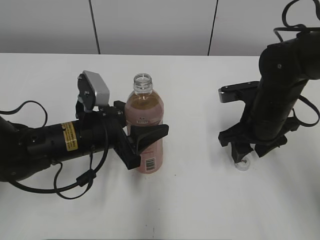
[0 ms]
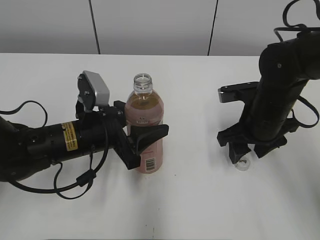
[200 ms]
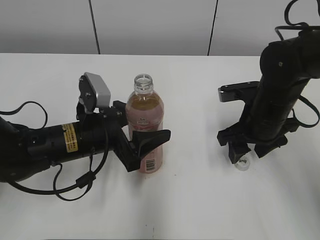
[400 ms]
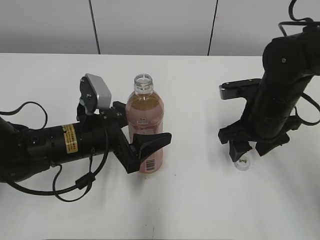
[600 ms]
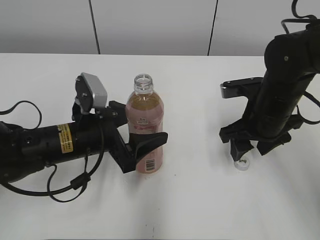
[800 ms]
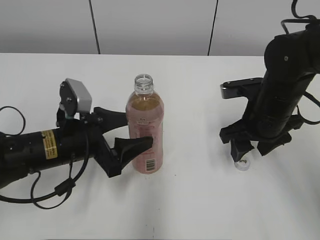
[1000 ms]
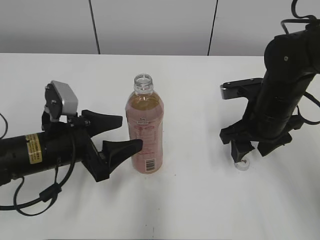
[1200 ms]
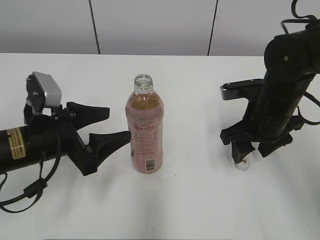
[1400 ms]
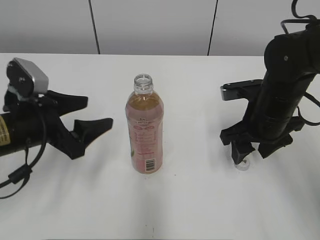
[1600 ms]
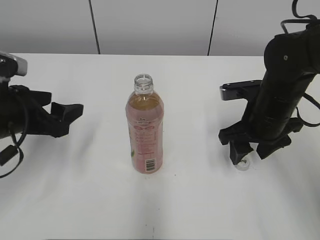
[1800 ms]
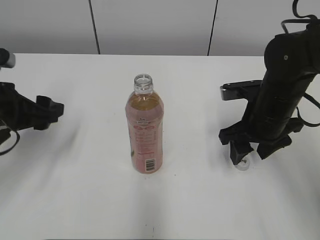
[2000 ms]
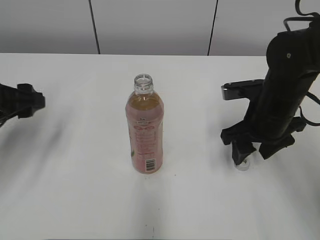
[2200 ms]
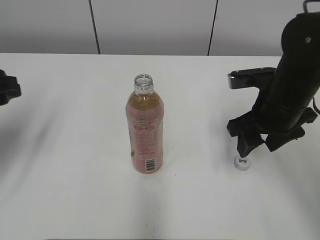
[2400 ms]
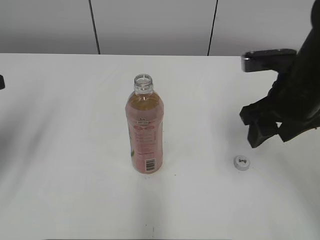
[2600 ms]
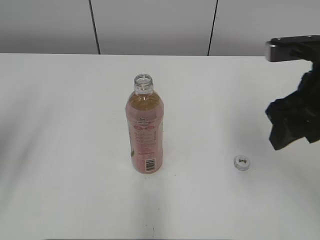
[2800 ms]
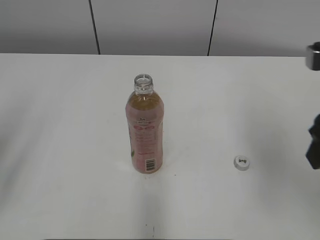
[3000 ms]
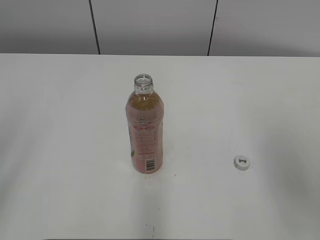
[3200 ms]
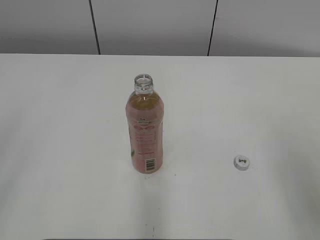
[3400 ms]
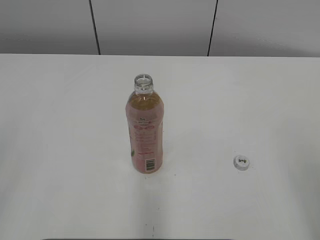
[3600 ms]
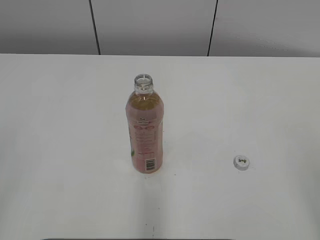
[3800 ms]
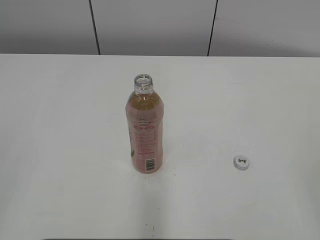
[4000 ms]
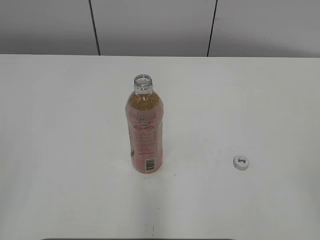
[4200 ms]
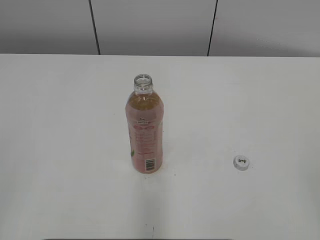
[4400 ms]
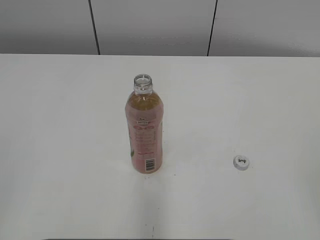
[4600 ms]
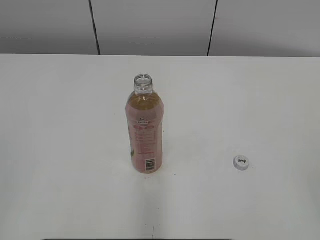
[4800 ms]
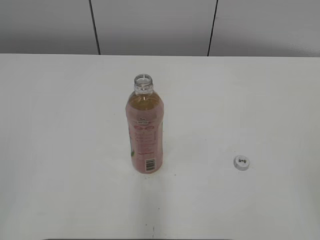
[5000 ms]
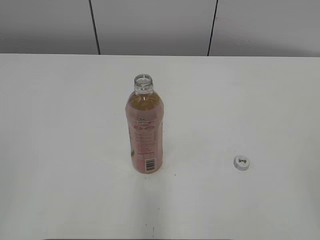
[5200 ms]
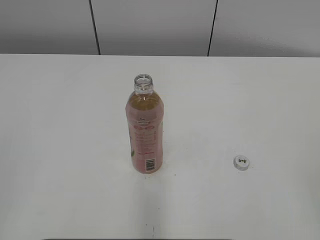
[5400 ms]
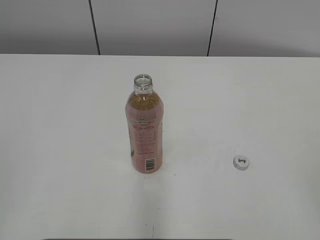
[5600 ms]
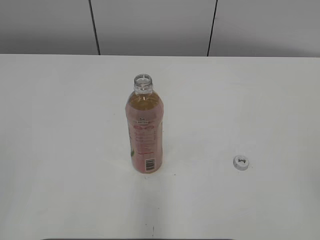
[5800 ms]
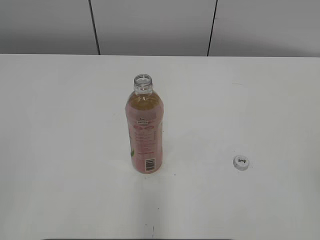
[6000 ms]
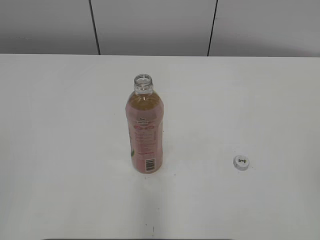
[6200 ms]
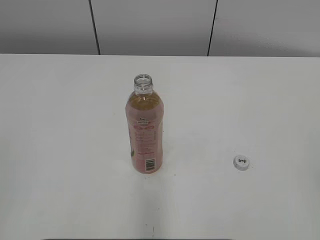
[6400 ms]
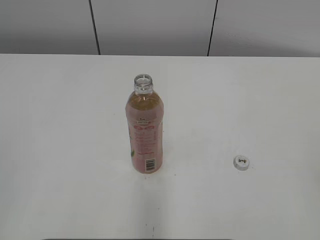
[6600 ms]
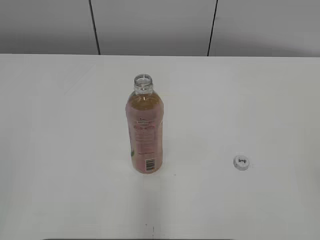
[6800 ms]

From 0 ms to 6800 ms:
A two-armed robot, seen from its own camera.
From 0 ms to 1400 ms: The left gripper goes some 5 cm to the left, and opens.
From 1400 ms to 2800 ms: The right gripper moves upward and backward, some 15 cm, while the left gripper is displaced upward and to the left by some 20 cm.
From 2800 ms to 4000 ms: The right gripper moves backward and to the right, some 25 cm, while the left gripper heads backward, covering roughly 20 cm, and closes.

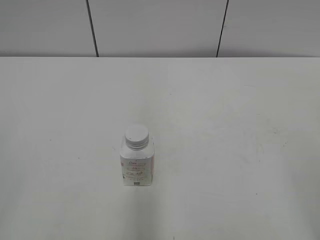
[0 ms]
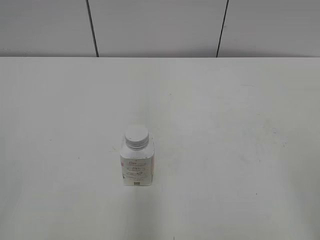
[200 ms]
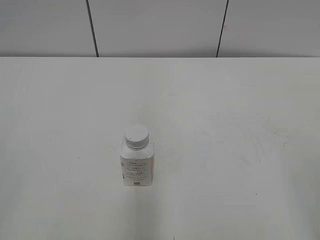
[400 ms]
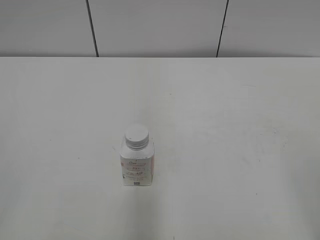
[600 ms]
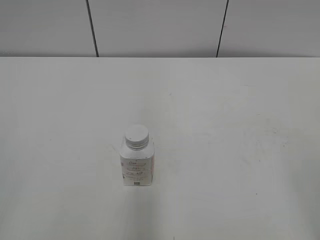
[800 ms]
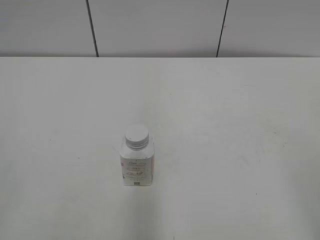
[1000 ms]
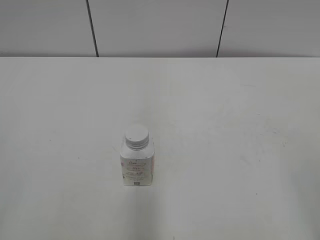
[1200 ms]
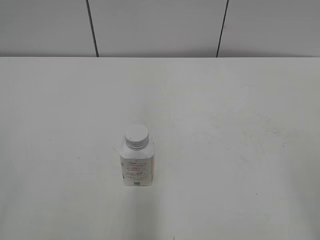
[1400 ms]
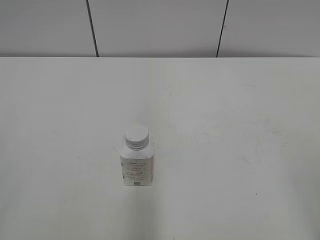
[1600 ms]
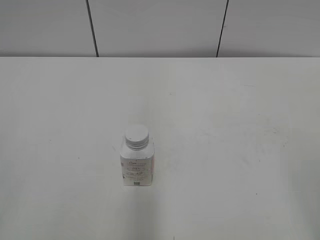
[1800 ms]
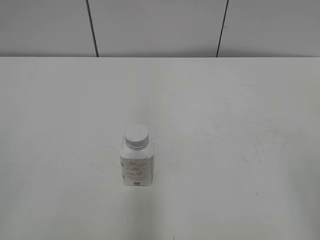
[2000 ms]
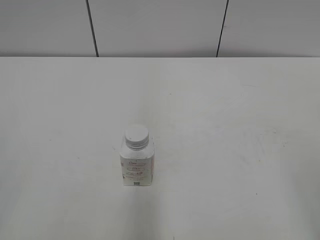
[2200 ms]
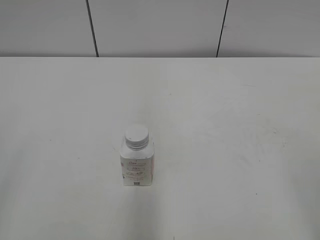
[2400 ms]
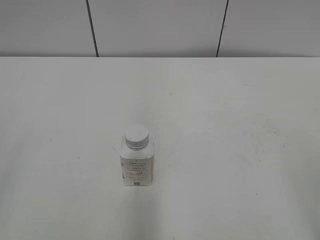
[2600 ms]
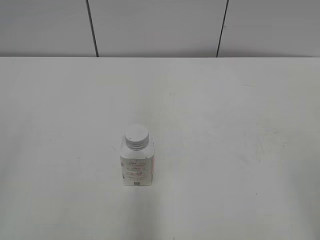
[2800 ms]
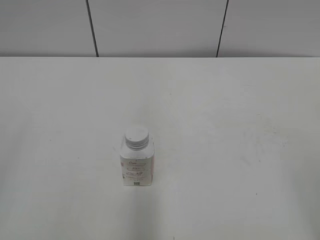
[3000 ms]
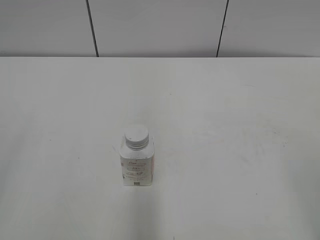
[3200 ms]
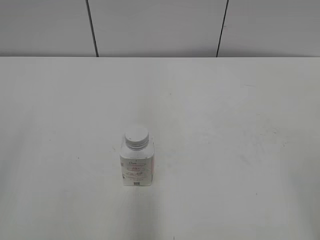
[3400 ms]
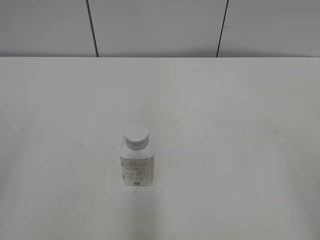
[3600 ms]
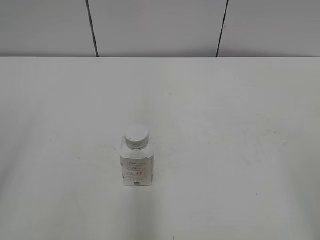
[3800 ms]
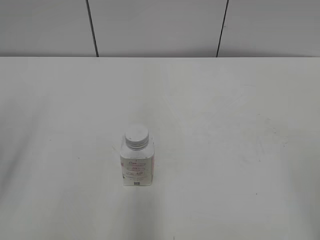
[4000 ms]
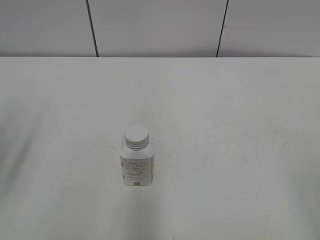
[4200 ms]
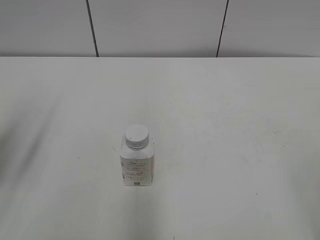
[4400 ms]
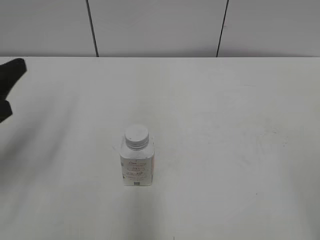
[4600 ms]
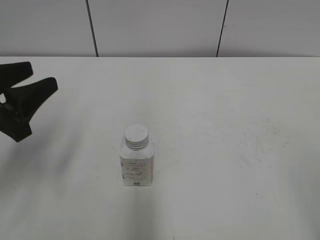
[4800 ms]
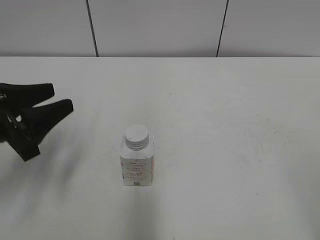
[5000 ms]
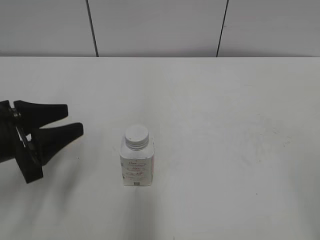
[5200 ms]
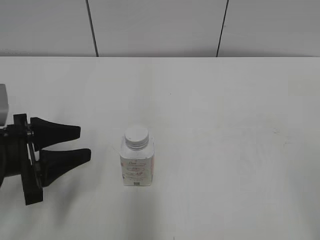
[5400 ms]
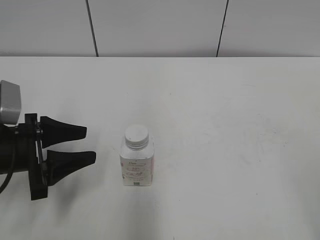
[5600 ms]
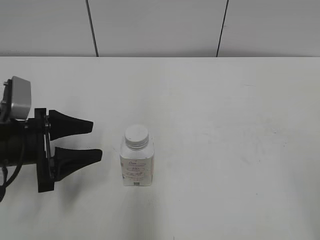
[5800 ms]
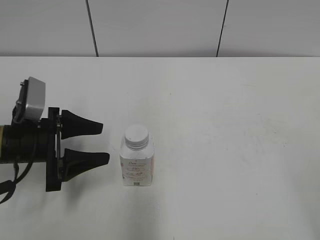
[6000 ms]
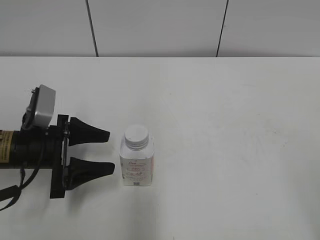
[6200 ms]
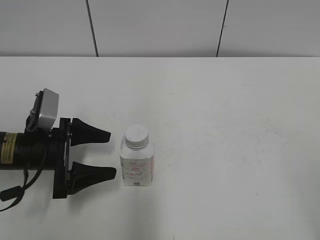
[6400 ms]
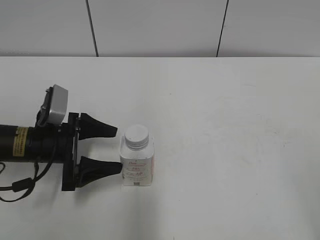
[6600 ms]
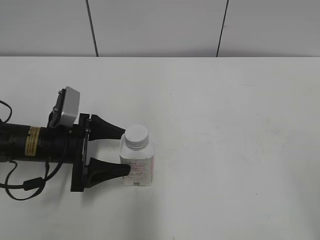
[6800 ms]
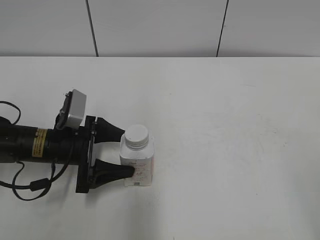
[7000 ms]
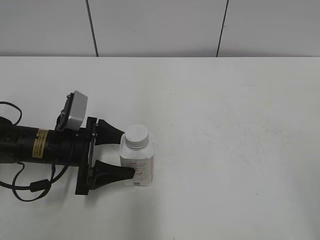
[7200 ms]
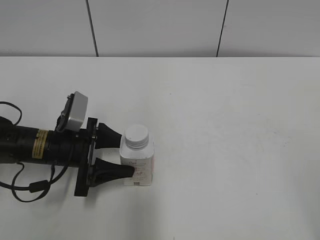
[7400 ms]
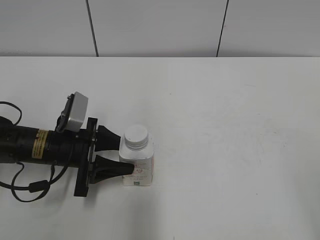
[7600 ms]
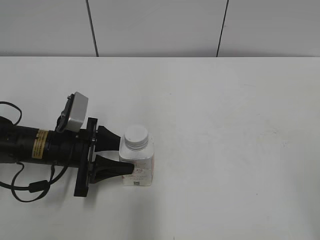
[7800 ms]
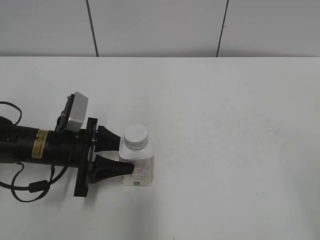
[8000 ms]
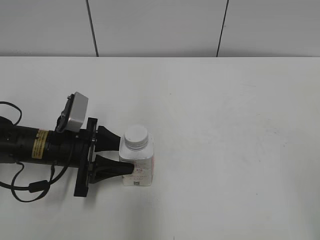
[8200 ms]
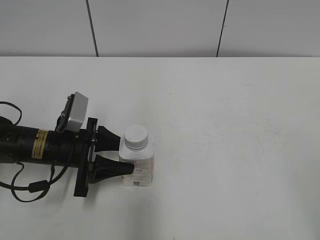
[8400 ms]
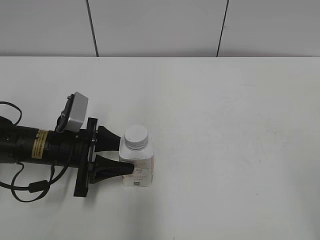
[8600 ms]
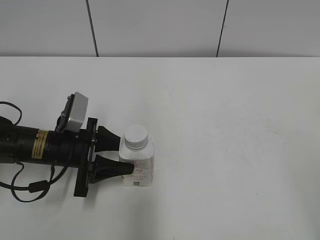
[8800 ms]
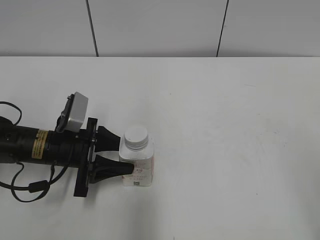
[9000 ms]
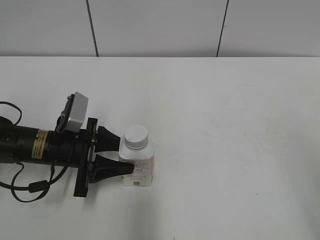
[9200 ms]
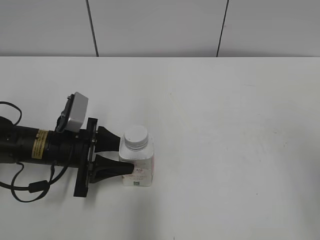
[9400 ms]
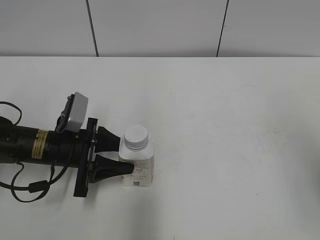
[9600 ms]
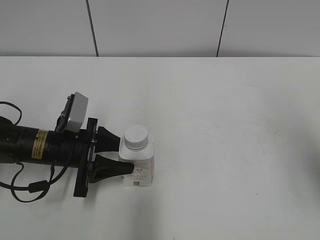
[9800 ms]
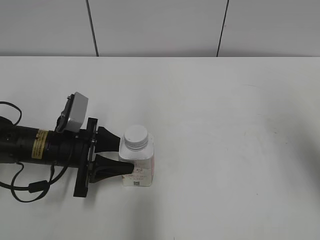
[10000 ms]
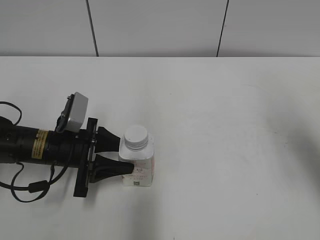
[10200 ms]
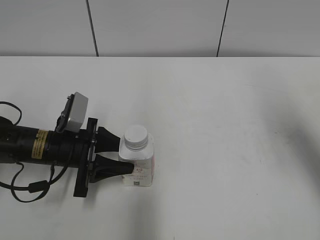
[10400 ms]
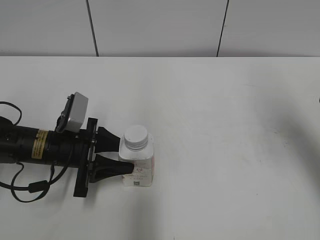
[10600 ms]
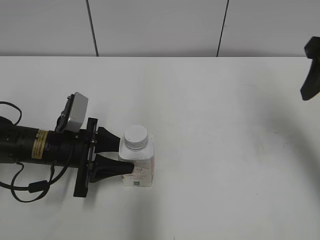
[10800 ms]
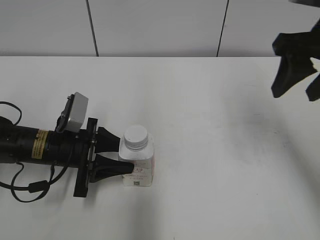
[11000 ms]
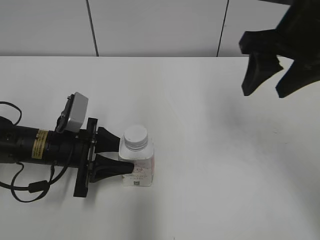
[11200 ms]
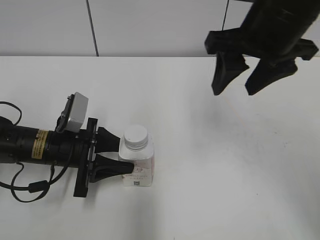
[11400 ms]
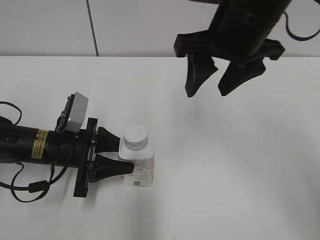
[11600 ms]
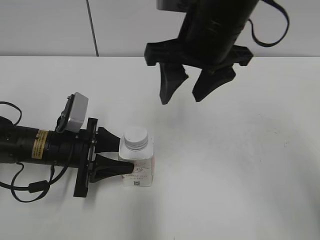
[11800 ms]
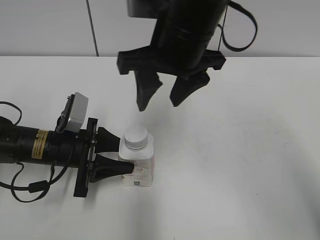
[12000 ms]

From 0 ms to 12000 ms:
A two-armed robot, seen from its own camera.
Step, from 0 ms to 7800 ms: Grasp the bottle and move it to the center of the table with the left gripper.
From 3000 ms to 4400 ms: The left gripper shifts about 15 cm forward.
From 4400 ms to 6000 ms: The left gripper moves downward, forward and to the right, approximately 15 cm.
From 6000 ms to 7600 ms: The left gripper moves some 5 cm.
From 9000 ms to 10400 ms: The right gripper goes some 25 cm forward, and closes its fingers.
From 10400 ms to 12000 ms: The right gripper travels to the left by approximately 25 cm.

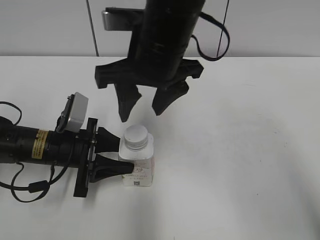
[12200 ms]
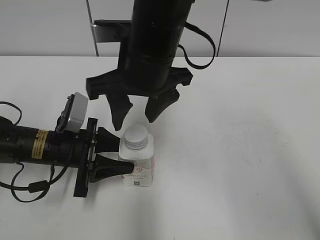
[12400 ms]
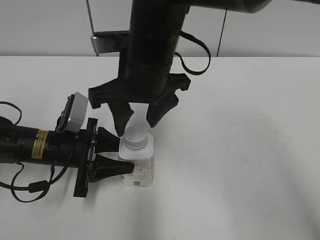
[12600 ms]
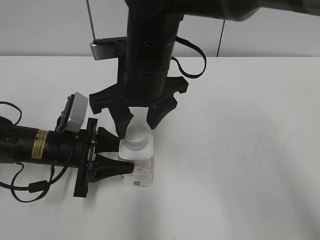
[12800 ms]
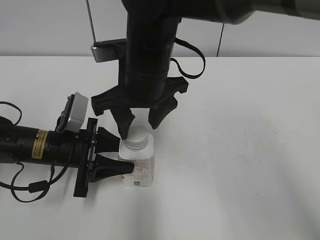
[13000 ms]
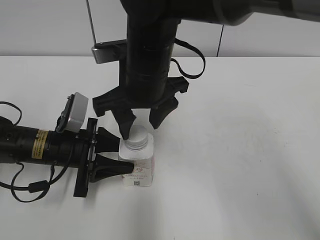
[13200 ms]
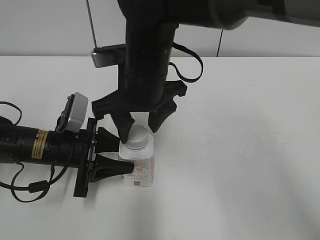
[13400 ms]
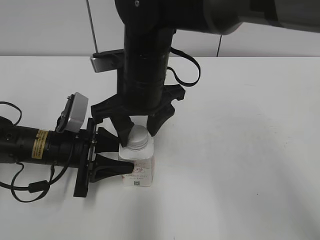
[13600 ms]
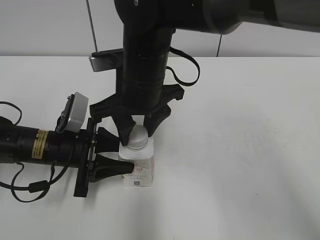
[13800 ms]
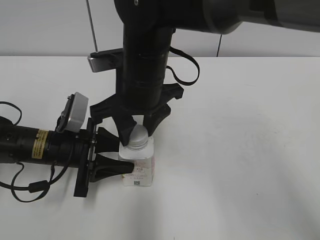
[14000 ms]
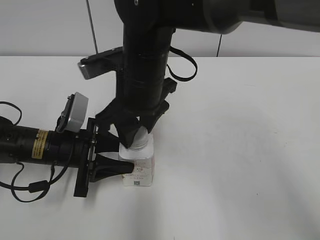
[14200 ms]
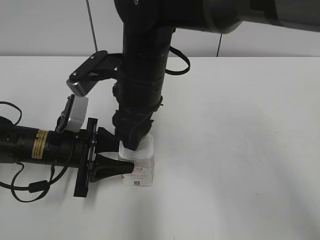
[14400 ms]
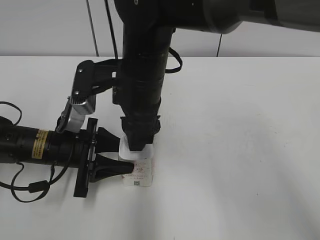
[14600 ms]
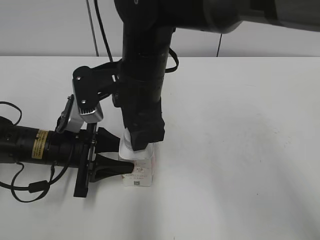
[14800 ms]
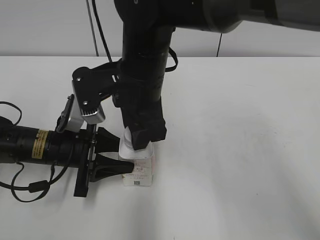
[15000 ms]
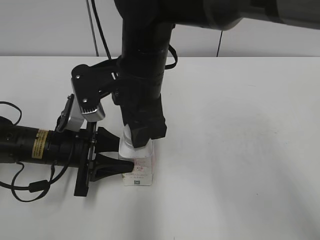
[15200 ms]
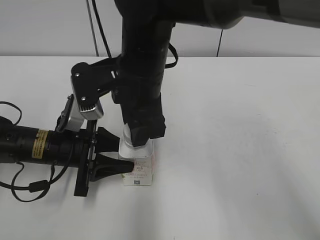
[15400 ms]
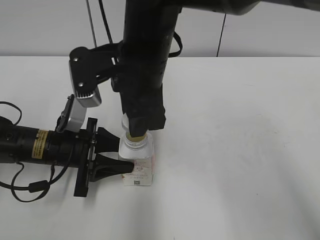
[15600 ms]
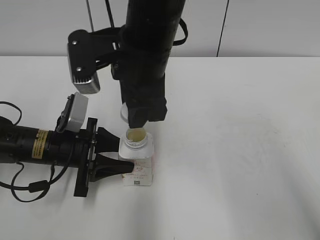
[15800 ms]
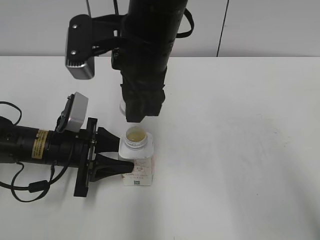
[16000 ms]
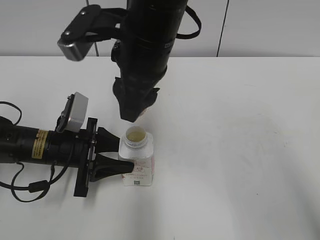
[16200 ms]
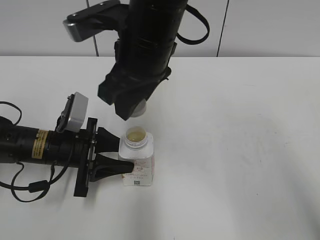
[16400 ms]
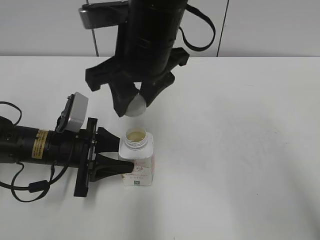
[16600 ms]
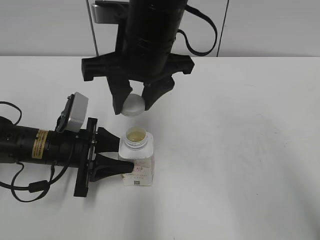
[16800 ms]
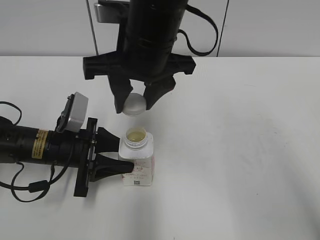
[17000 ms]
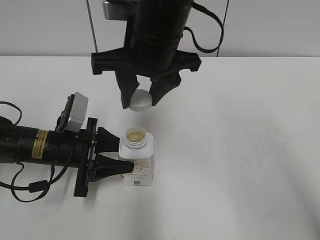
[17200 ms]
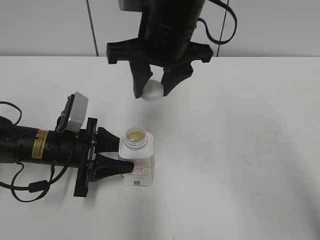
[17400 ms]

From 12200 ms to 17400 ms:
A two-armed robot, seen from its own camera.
Step, from 12200 ms to 16600 ms: Unscrew the bottle cap with the right gripper while holding the bottle with the left gripper.
From 12200 ms to 14000 ms: The right gripper is displaced downward by approximately 5 cm, and closes its fingers.
From 15600 ms to 17400 ms: The right gripper ends up roughly 5 cm from where it was.
